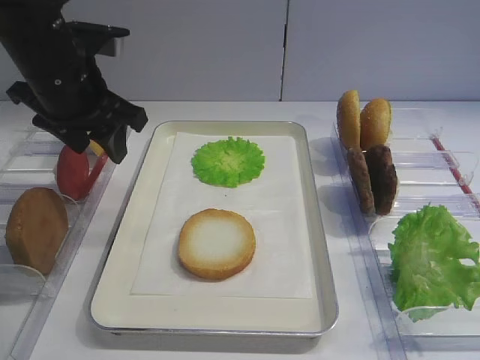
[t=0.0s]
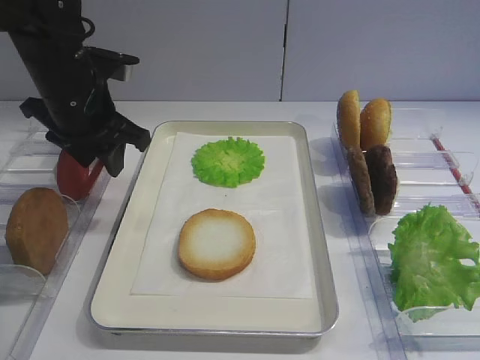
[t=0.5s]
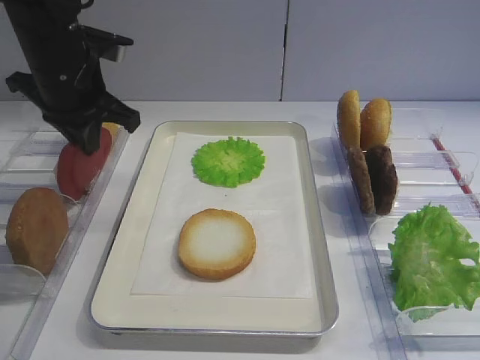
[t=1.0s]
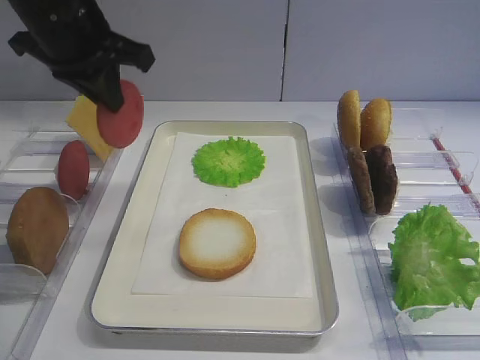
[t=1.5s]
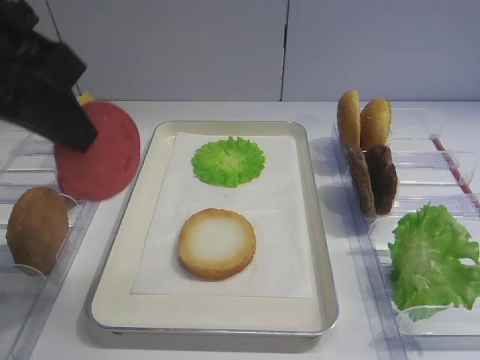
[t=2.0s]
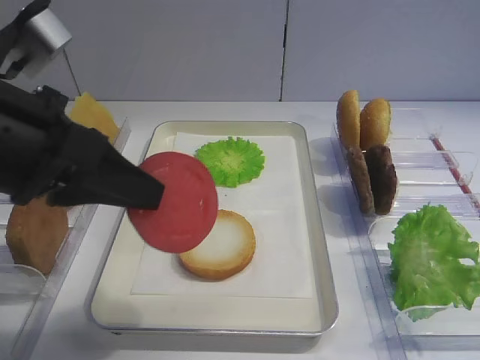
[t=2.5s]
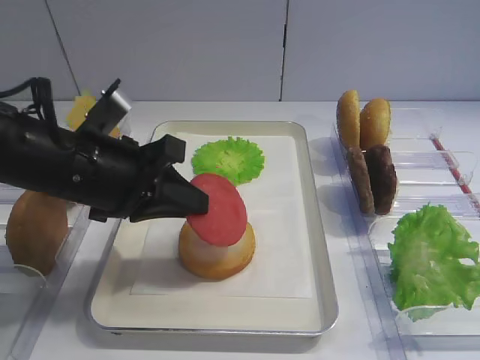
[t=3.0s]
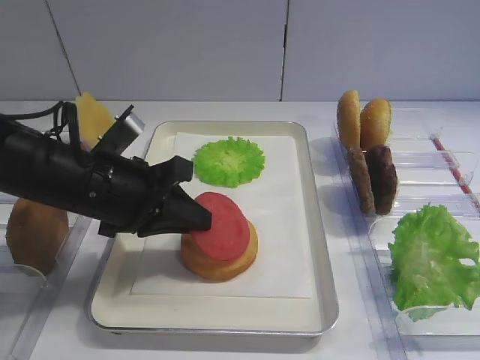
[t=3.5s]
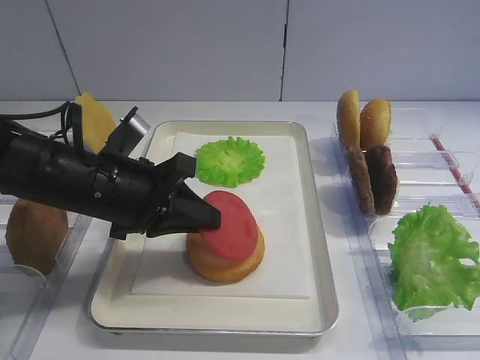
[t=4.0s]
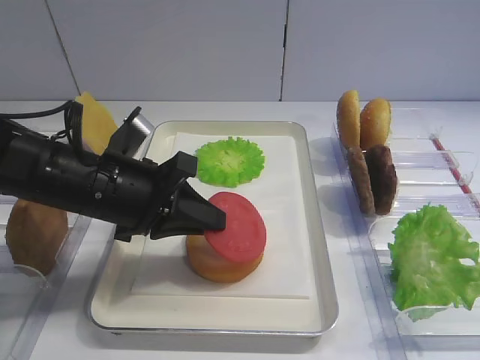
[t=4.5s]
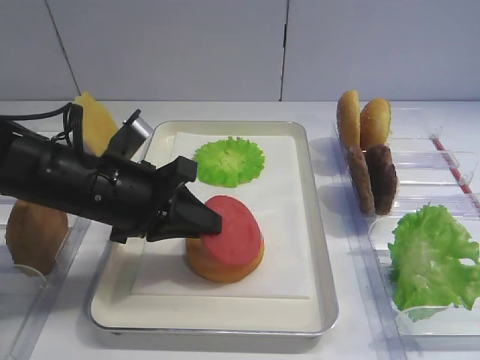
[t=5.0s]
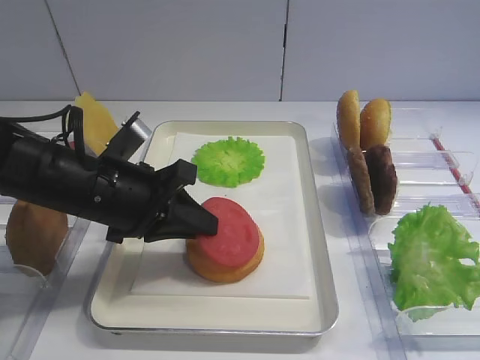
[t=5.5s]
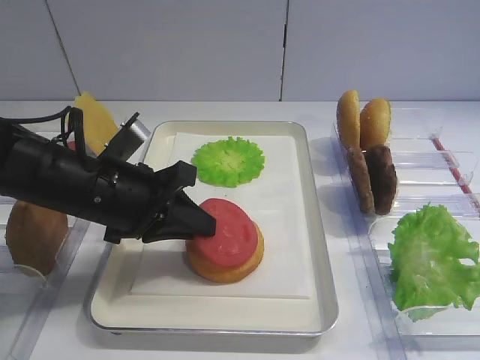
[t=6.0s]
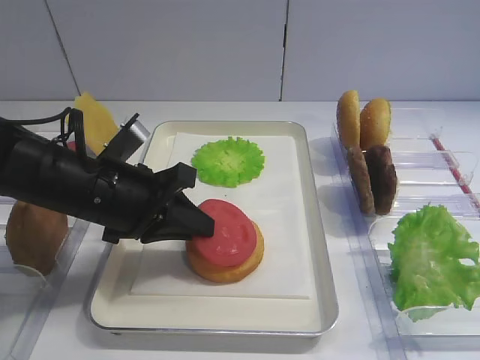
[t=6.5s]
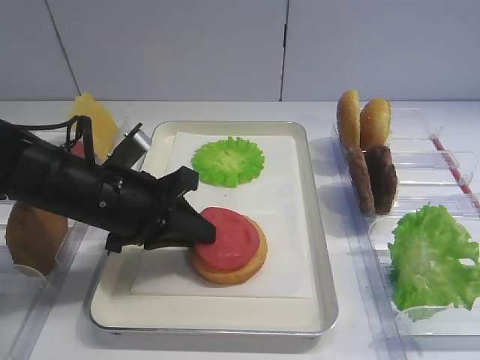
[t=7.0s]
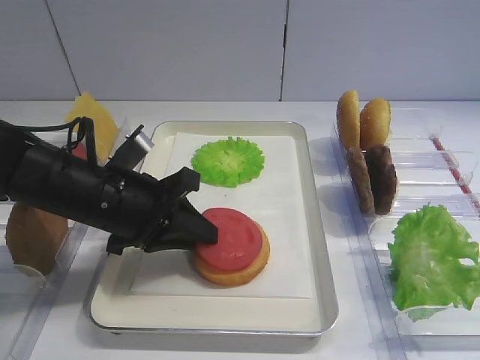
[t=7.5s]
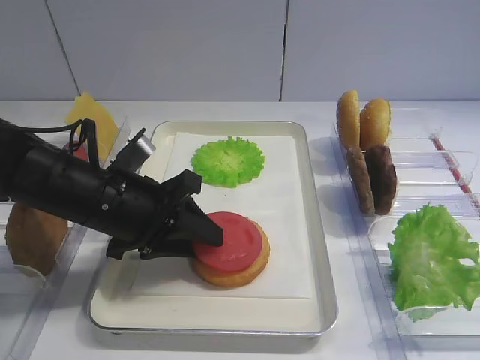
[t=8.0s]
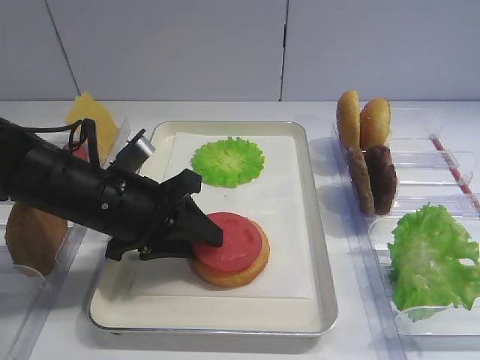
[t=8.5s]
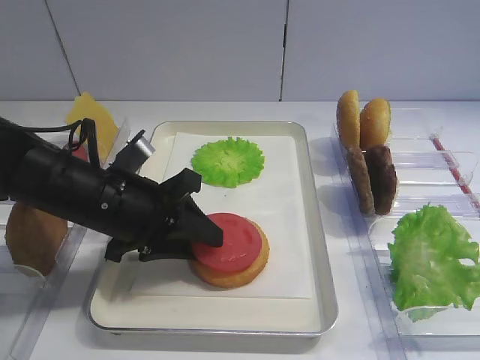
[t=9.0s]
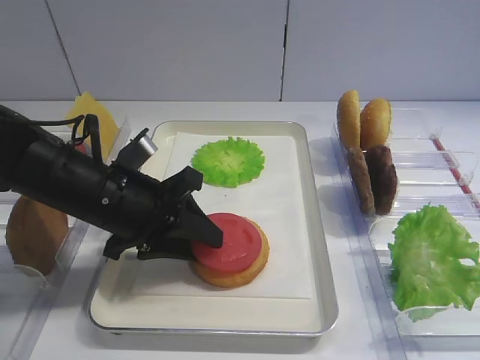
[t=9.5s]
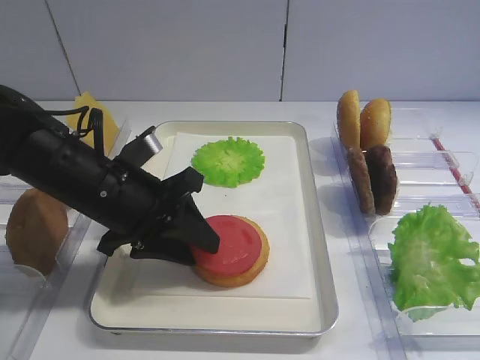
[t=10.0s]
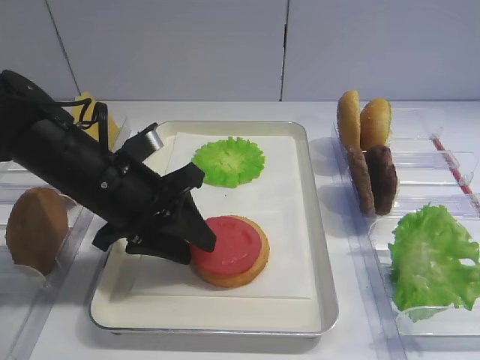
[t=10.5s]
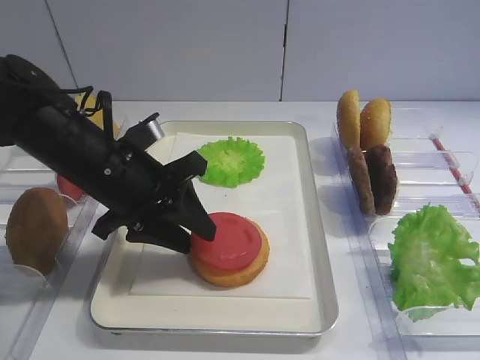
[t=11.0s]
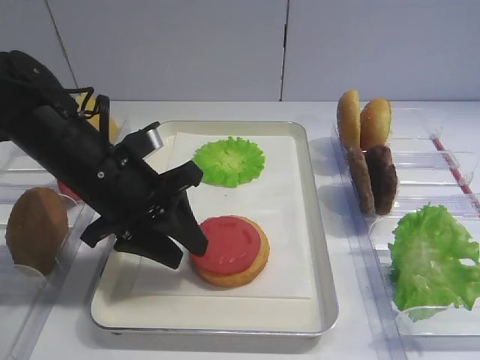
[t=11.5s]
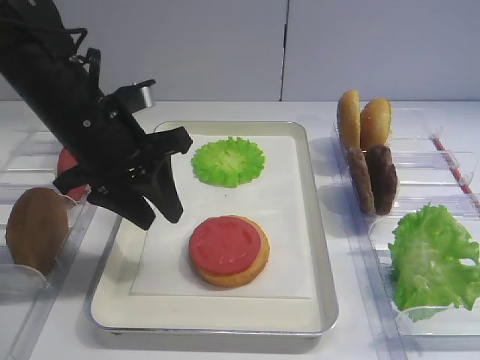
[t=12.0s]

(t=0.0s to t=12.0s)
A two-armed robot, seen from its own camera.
Step, t=1.5s - t=11.5s: Place the tomato slice on the bread slice with the left gripper.
t=0.0s - t=2.0s: The left gripper shifts roughly 15 cm backward and upward, and closes up.
t=2.0s - t=4.0s: The left gripper heads downward, covering approximately 20 cm.
t=4.0s - t=6.0s: Both grippers stay put.
t=6.0s - t=8.0s: The left gripper opens.
t=8.0s - t=10.0s: The grippers move only a little.
t=10.0s - t=12.0s: The left gripper is displaced upward by roughly 5 cm.

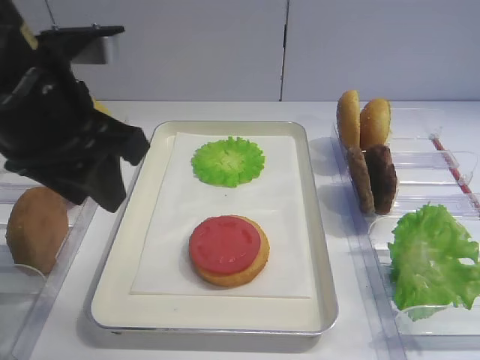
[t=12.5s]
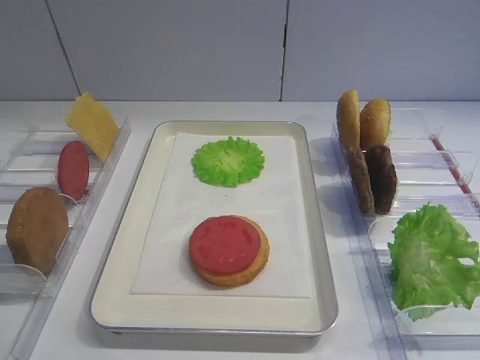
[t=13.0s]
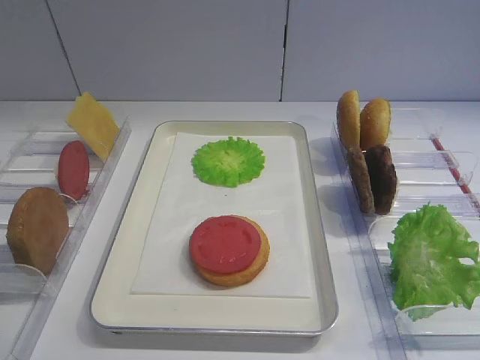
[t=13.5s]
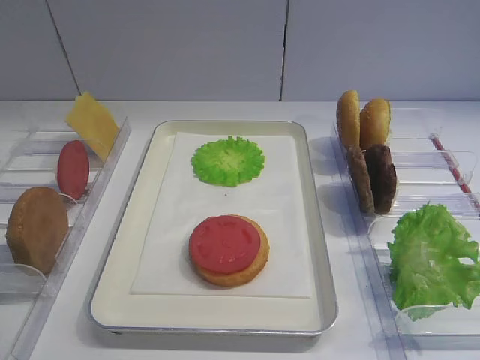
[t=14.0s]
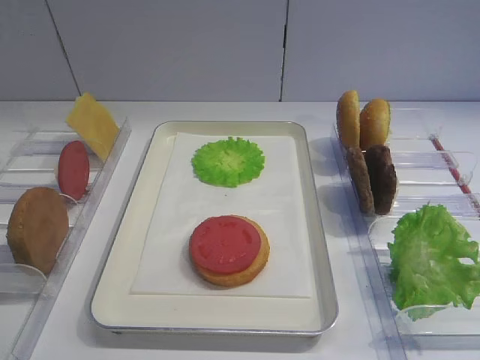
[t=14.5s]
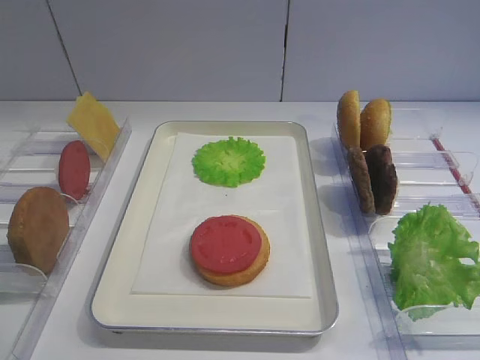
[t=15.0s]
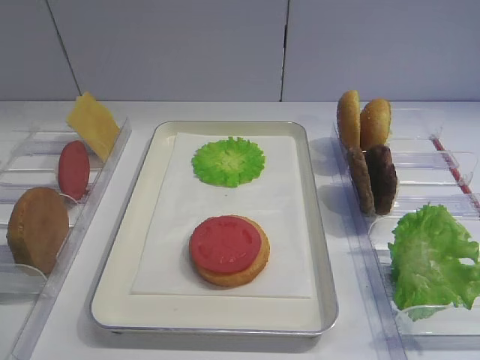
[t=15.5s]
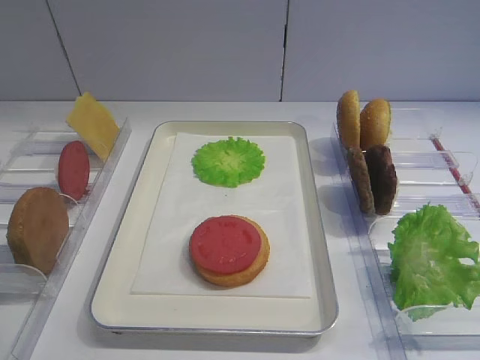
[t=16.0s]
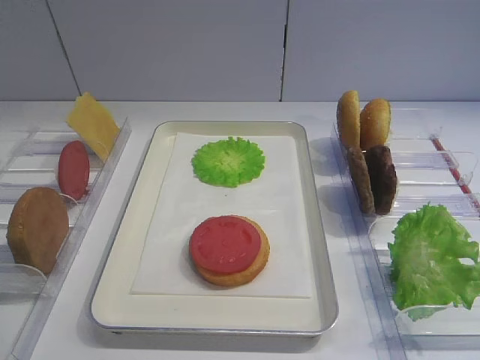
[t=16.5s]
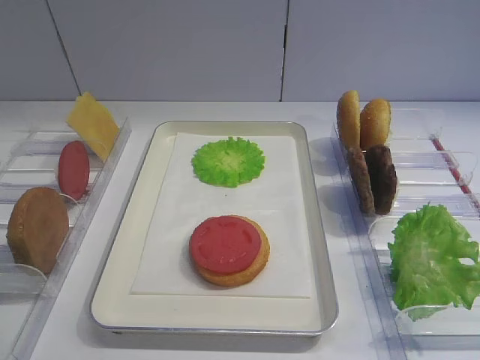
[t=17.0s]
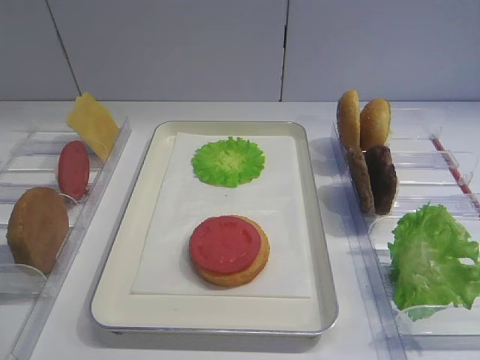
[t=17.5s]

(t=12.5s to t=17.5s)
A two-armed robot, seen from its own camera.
t=12.5s - t=15.0s: The left gripper shifts roughly 25 cm backward and to the left.
